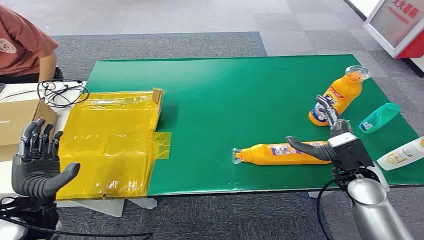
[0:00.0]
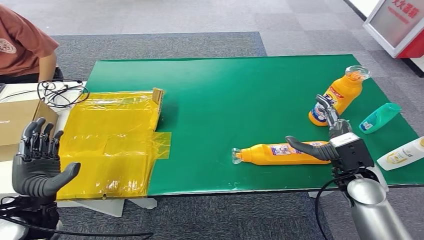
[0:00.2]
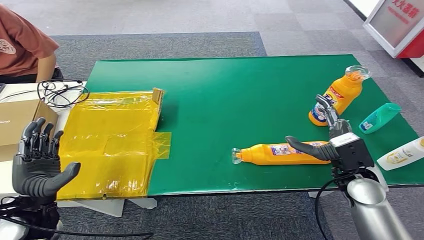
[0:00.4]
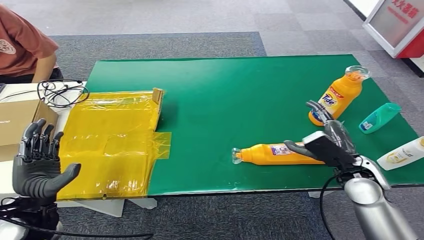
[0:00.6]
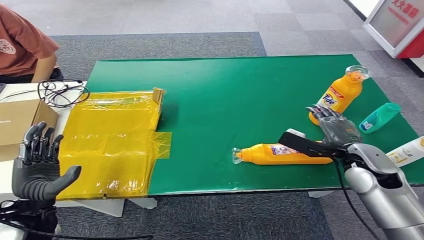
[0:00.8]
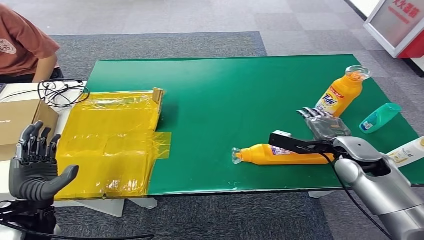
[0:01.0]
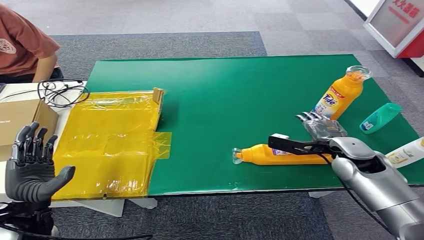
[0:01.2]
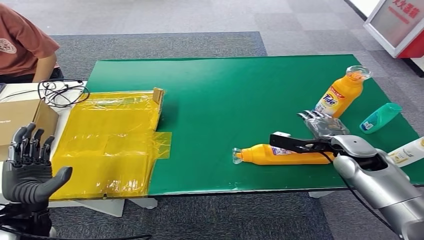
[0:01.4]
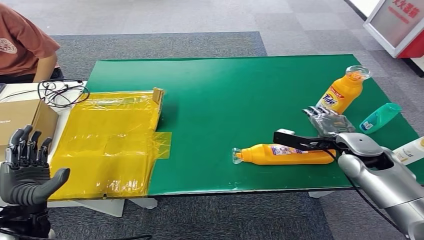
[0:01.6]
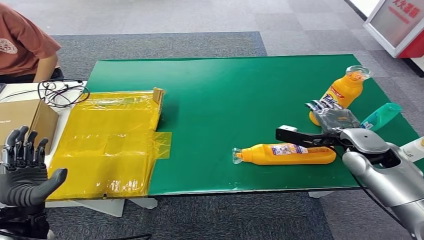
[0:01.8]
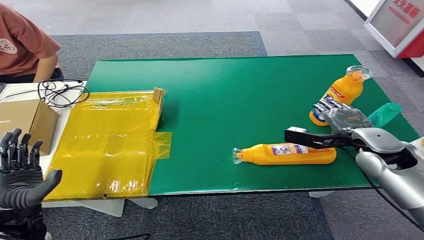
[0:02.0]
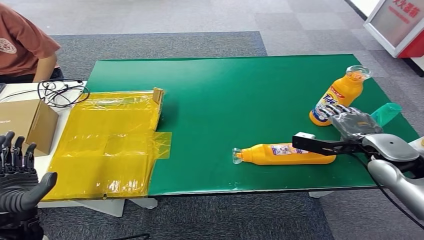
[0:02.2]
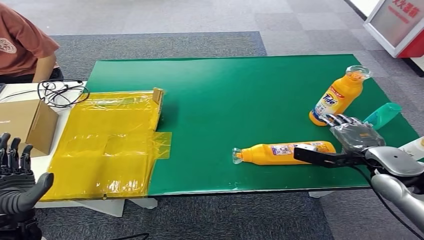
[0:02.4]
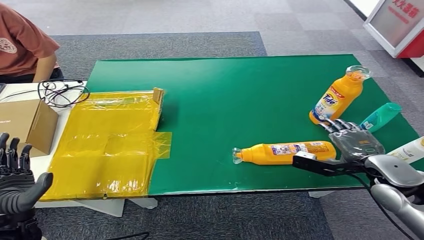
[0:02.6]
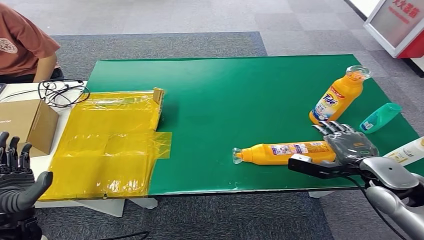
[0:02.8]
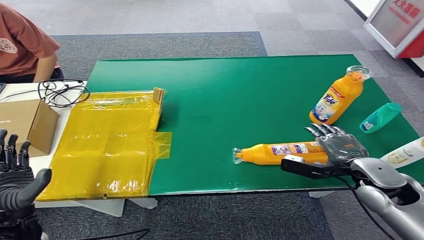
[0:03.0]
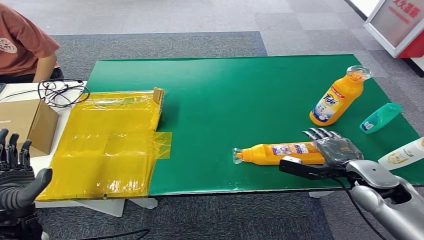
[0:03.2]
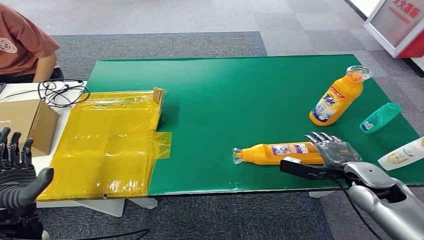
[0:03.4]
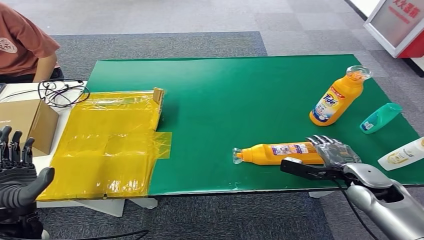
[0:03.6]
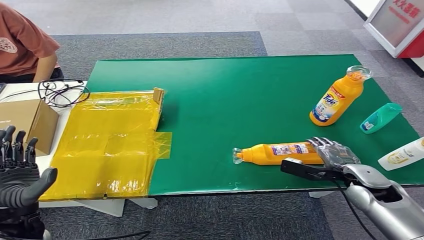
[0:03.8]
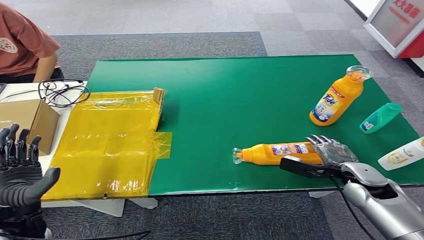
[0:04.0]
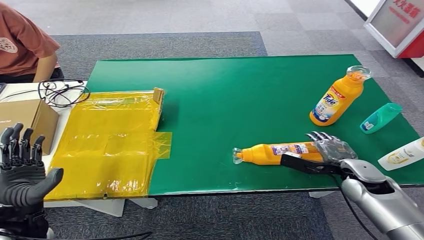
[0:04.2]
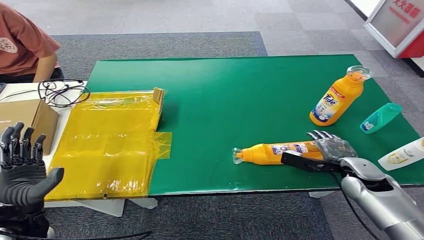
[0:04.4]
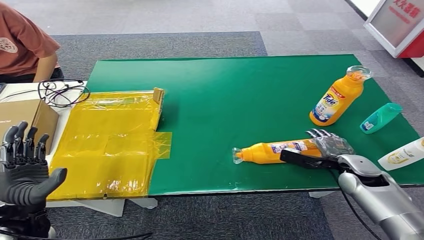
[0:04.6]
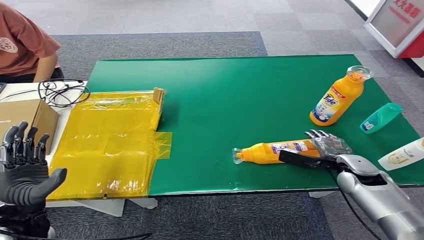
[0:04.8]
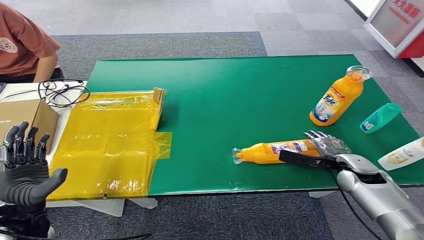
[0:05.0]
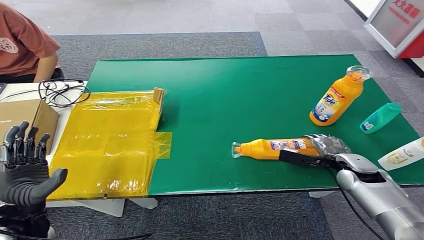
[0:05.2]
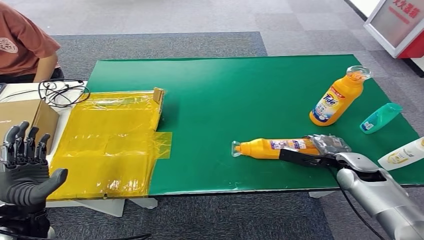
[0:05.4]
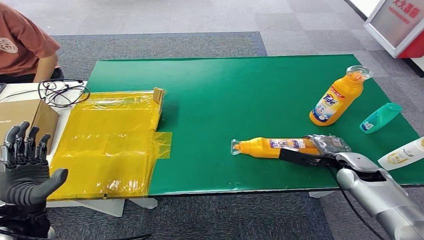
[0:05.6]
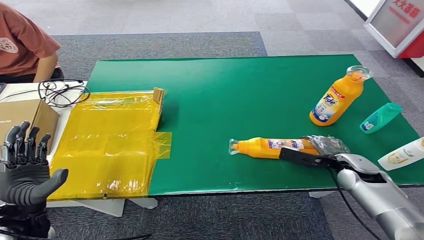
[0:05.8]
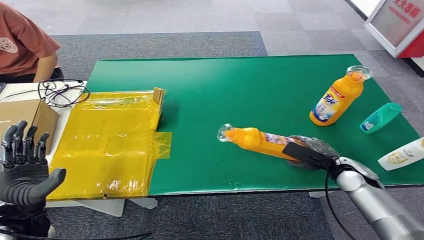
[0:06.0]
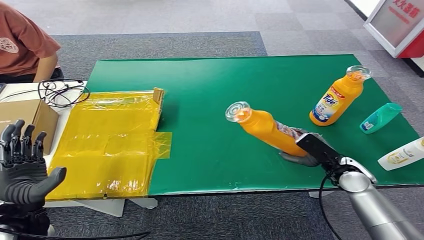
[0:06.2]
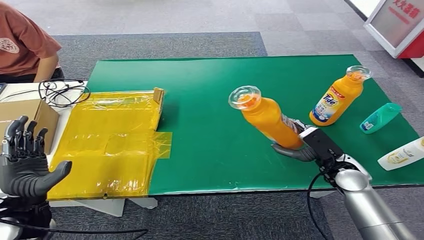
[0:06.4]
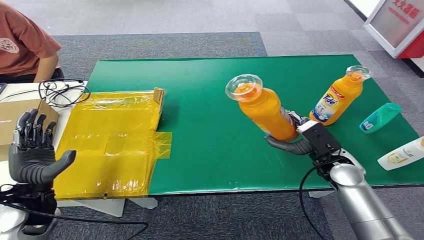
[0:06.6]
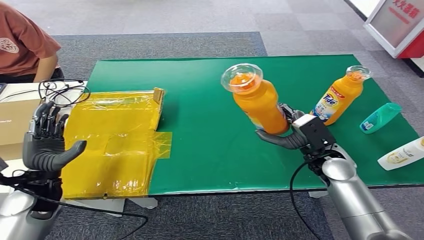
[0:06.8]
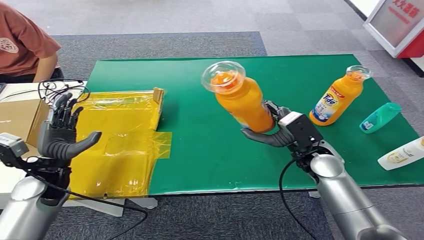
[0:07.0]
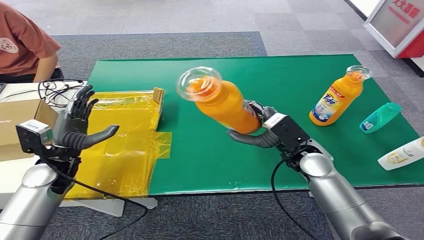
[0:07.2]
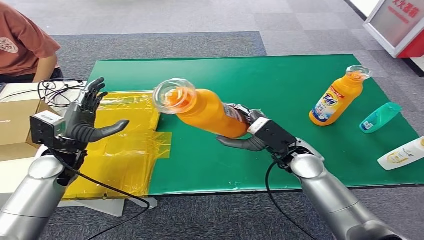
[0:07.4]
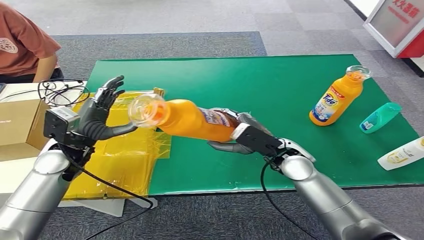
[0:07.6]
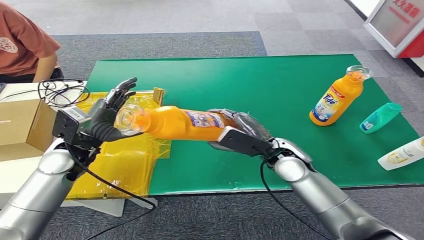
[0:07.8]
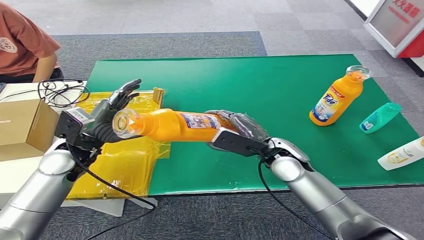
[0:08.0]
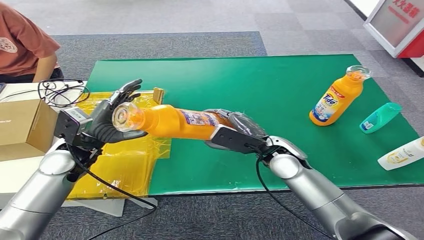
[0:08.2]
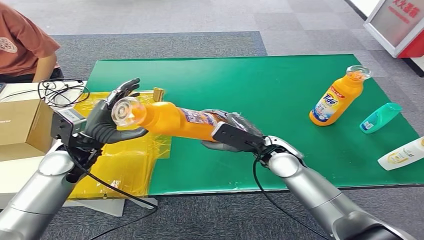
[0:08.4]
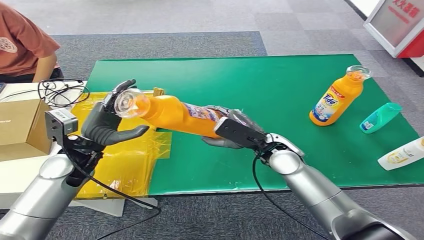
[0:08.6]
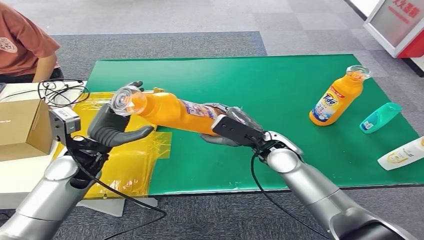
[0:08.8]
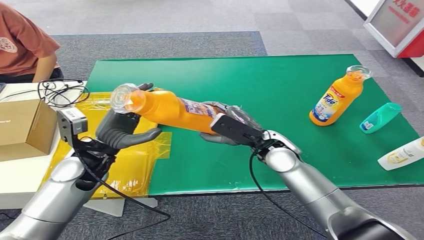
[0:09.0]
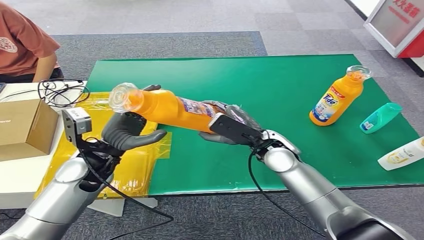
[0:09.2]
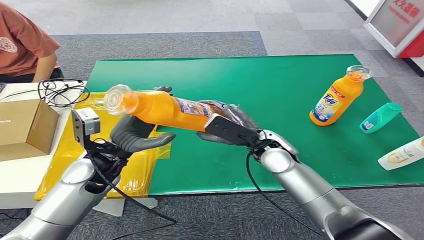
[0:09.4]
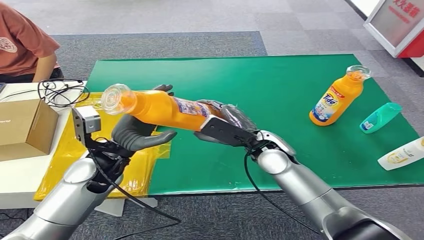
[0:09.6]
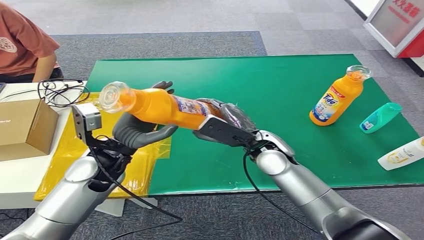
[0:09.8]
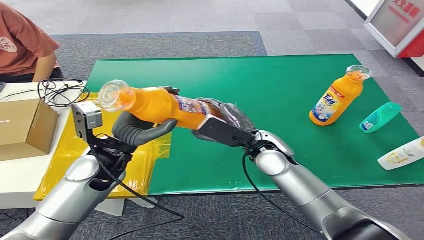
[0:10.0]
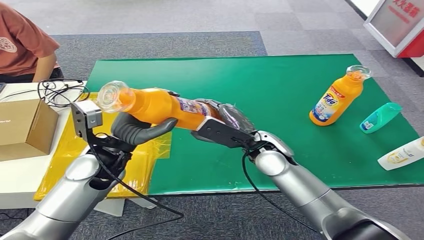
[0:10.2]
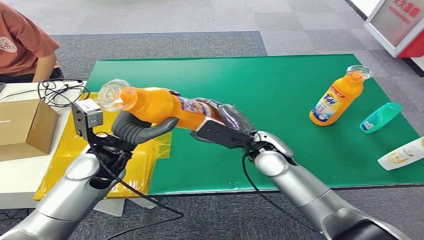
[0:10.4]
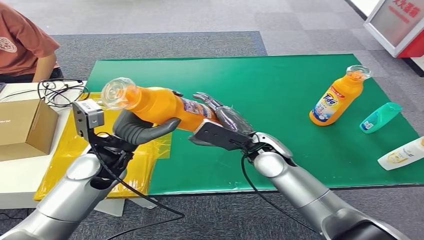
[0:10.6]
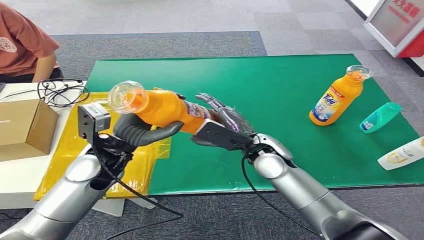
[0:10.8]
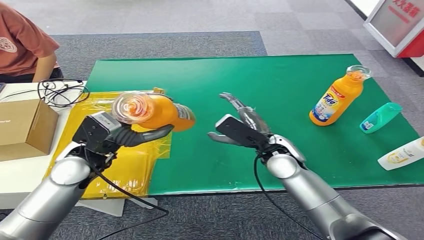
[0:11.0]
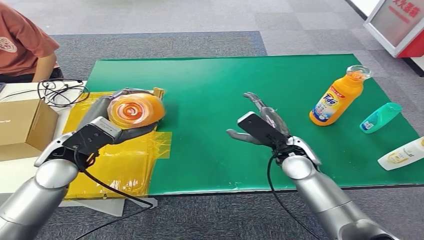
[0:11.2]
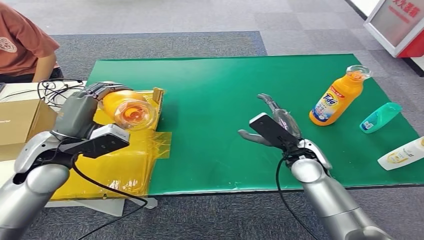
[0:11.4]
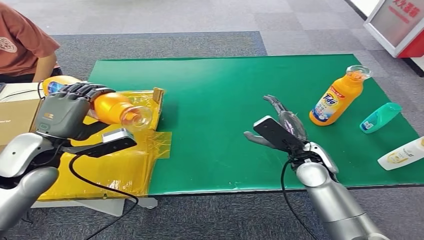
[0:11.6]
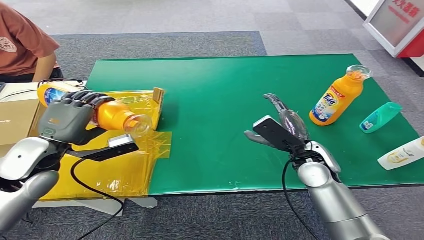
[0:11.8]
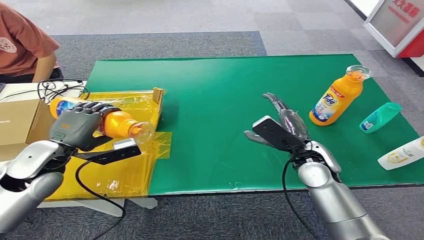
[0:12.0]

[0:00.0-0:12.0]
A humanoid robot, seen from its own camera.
Step, 0:00.0 to 0:07.2: Pick up the bottle from the table.
0:01.6 to 0:03.0: The right hand goes about 10 cm backward.
0:03.0 to 0:04.4: The right hand moves downward, about 5 cm.
0:07.6 to 0:09.0: The left hand travels to the right by roughly 5 cm.
0:09.0 to 0:10.4: The left hand shifts by some 5 cm.

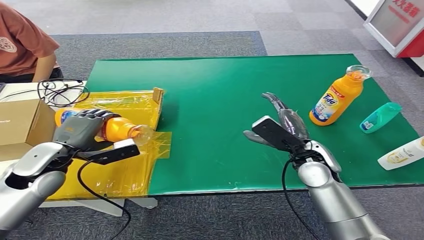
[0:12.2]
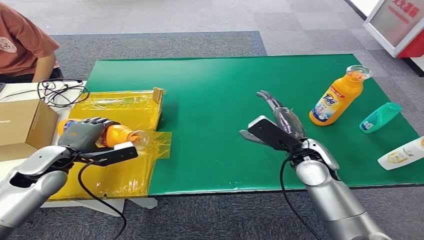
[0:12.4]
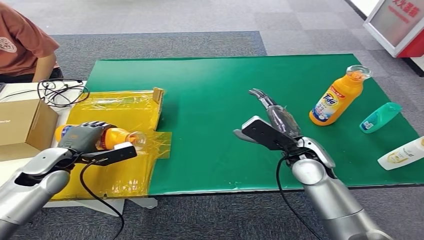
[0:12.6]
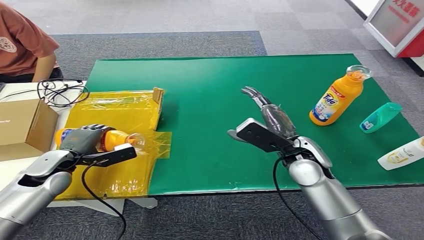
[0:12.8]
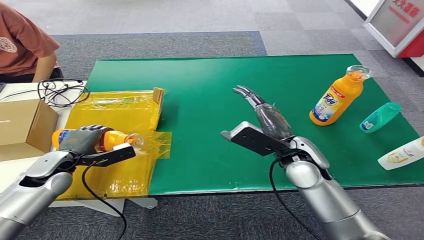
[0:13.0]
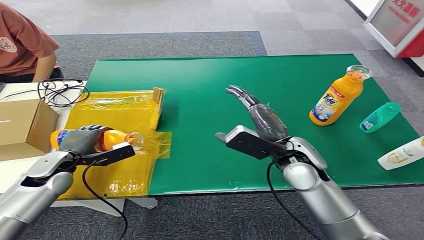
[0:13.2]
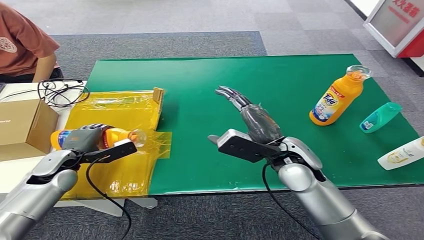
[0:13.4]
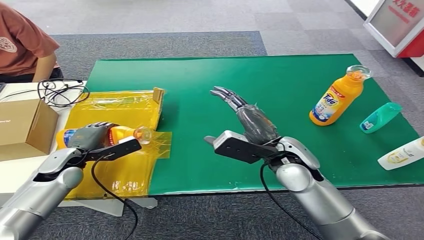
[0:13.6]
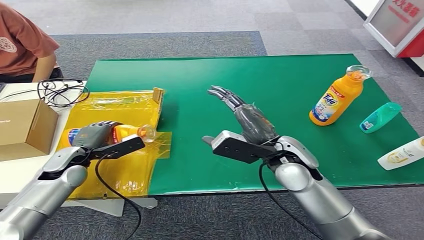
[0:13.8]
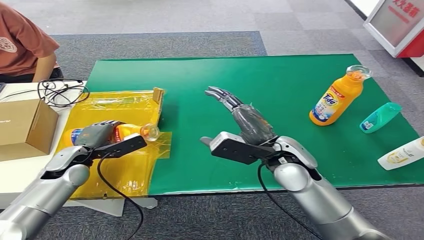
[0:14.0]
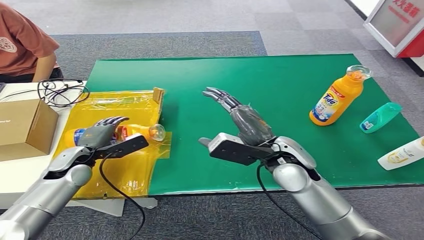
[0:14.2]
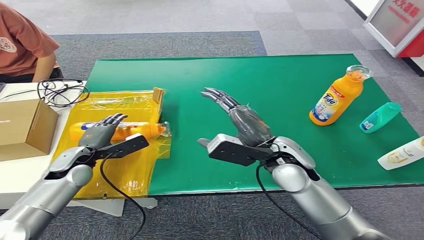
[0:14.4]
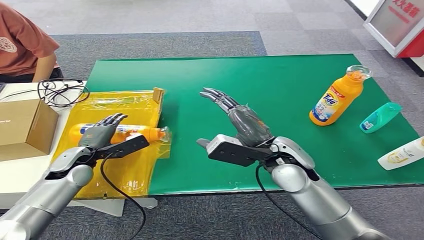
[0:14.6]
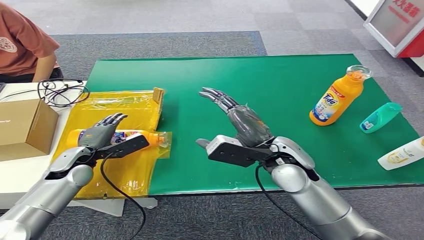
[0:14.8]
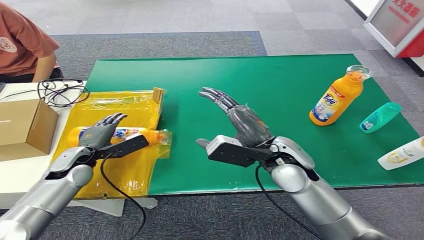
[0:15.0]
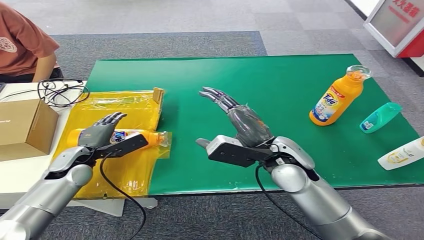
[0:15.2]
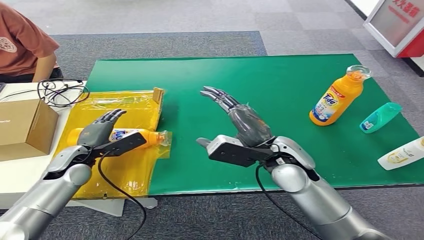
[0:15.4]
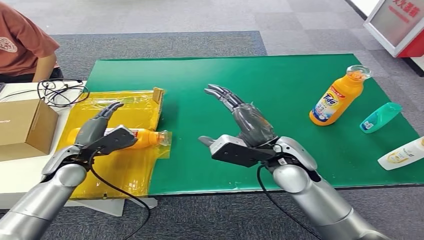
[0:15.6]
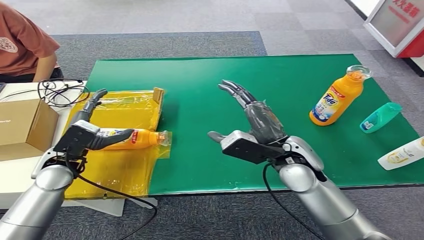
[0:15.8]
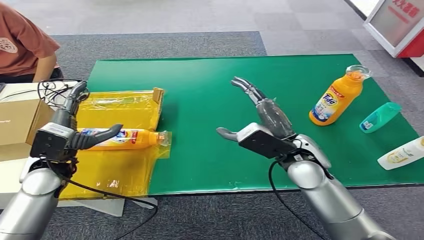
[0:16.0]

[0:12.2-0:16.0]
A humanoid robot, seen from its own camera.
Step, 0:12.2 to 0:15.8: Turn the bottle to the front side.
0:12.2 to 0:13.4: The left hand shifts approximately 10 cm downward, while the right hand heads to the left, covering roughly 5 cm.
0:13.4 to 0:14.8: The hands make only small movements.
0:14.8 to 0:16.0: The left hand is displaced upward by about 10 cm.
